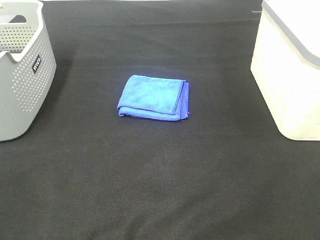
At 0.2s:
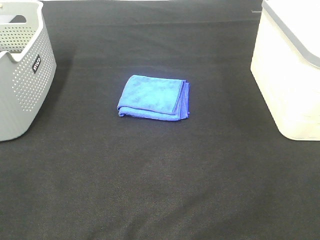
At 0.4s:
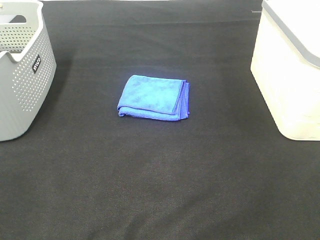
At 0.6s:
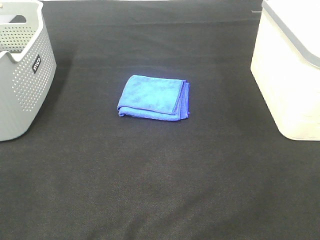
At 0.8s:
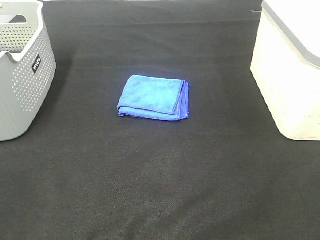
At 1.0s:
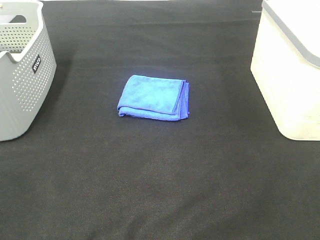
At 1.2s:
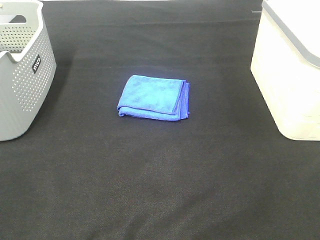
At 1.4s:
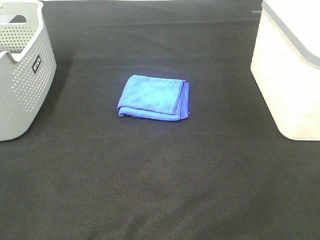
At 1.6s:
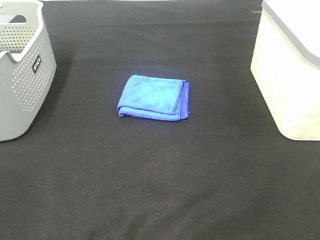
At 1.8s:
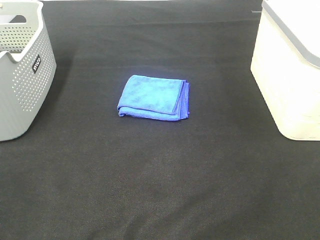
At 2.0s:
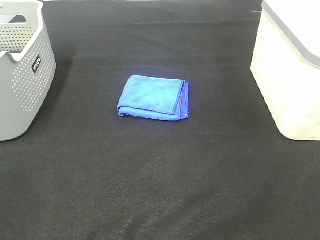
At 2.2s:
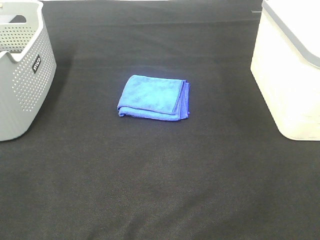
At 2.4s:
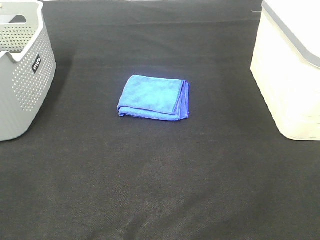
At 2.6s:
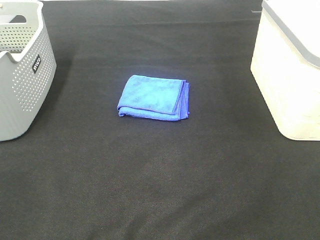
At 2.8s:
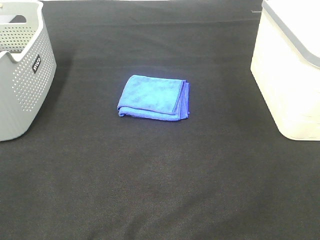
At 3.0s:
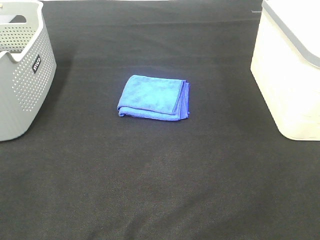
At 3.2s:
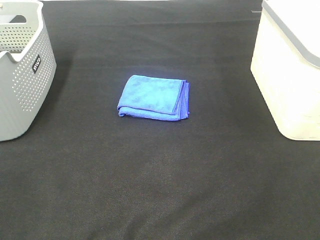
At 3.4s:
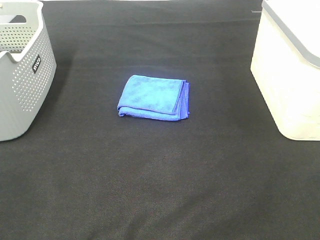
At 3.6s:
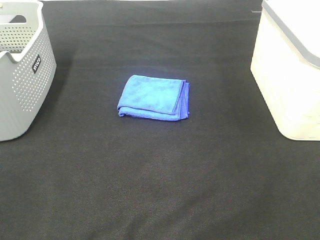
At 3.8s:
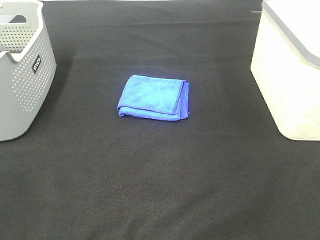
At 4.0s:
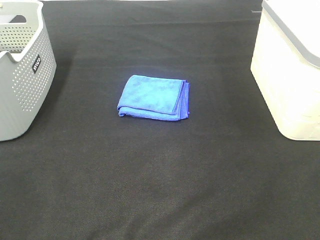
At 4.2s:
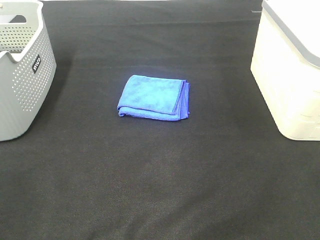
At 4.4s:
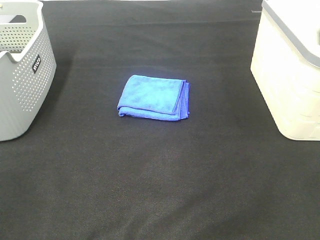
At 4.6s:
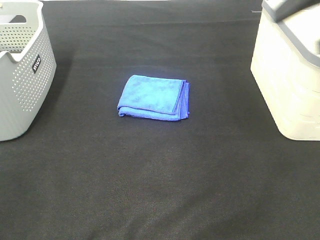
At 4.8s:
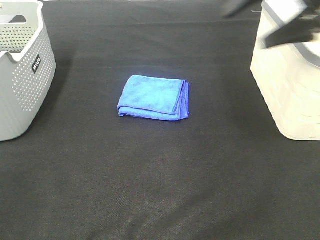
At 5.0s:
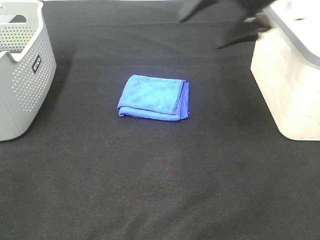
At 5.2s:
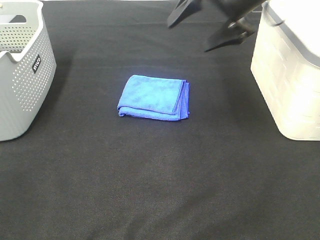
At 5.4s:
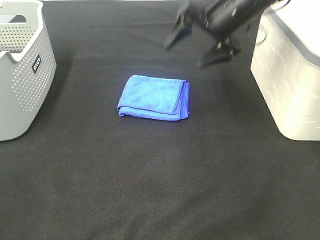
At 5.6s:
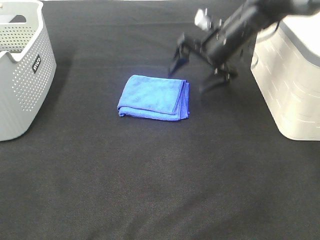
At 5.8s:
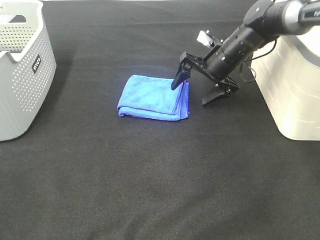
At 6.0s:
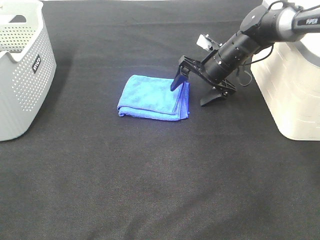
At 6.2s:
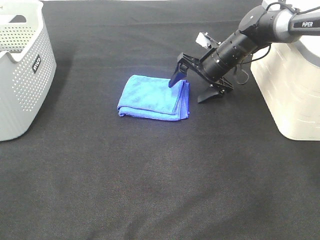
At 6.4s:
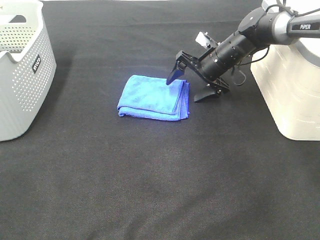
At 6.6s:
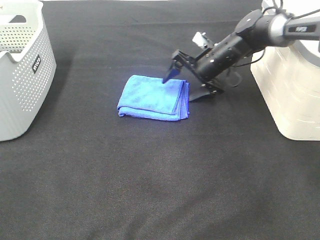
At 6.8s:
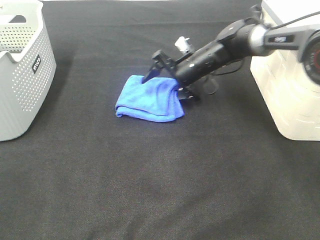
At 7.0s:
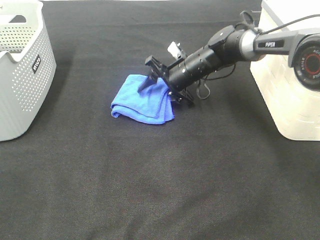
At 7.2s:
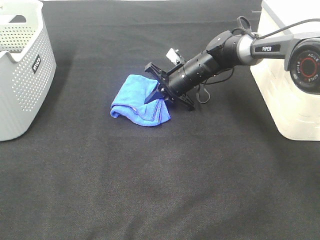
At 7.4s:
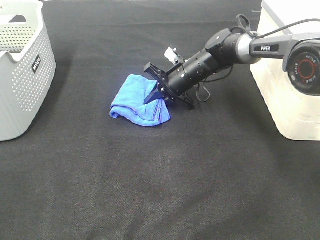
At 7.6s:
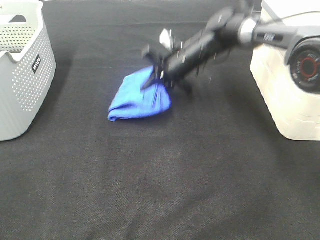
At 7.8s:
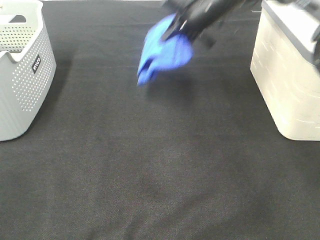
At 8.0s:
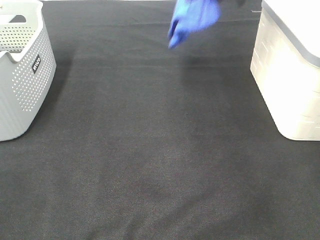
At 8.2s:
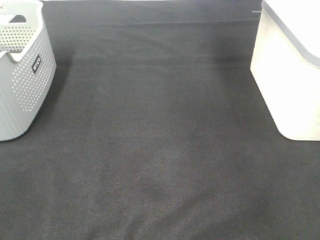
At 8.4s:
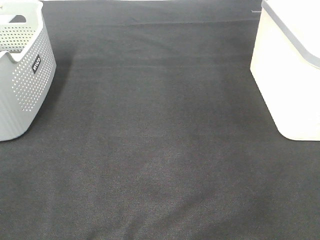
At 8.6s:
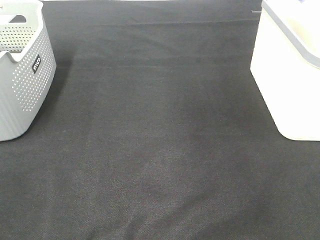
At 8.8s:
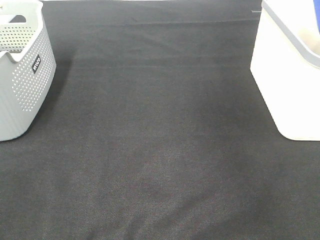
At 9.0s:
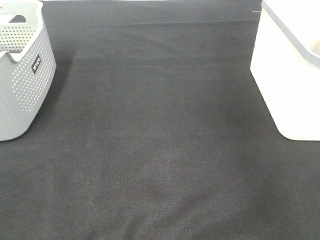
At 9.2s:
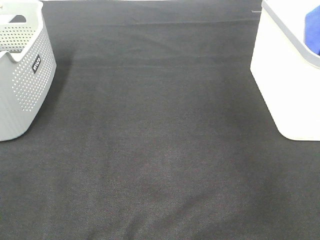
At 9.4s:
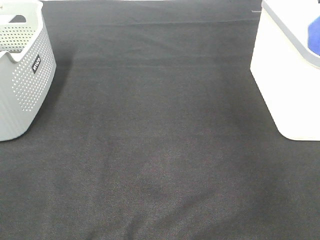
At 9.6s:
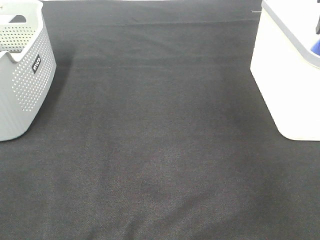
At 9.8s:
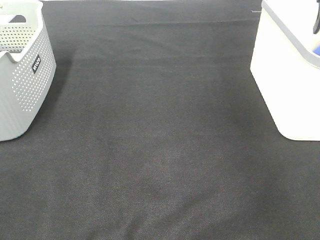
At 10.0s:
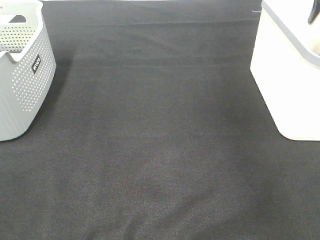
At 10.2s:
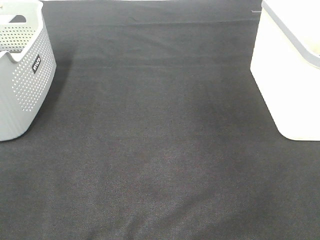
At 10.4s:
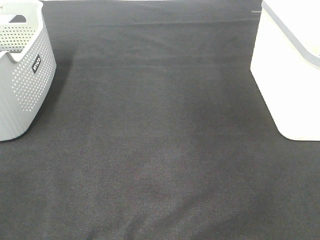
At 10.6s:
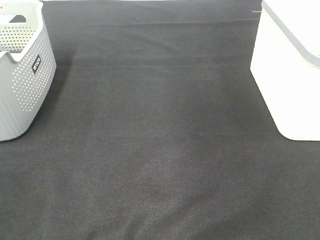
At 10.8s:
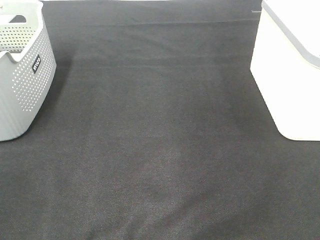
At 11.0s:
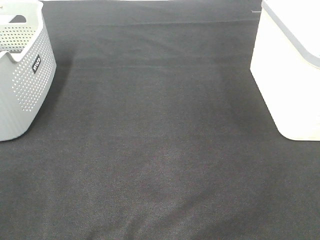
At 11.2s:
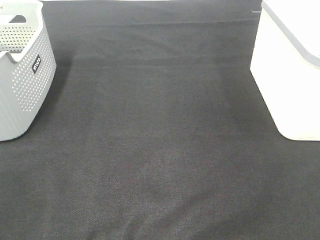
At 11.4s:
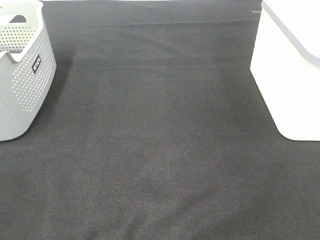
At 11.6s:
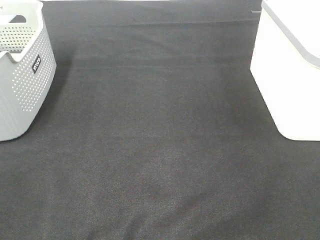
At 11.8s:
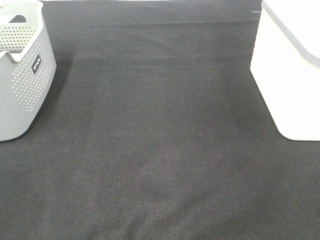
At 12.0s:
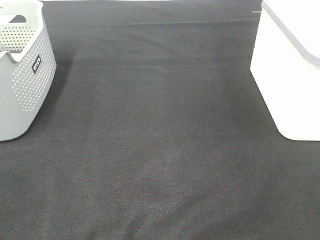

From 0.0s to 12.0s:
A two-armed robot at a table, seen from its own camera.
Step, from 0.0s to 7.2s: Right hand: grab the folded blue towel.
Step, from 7.4s to 9.6s: Right hand: place the blue towel in right basket.
From 0.0s to 3.0s: Both grippers stay about where they are.
From 4.4s to 6.0s: The right gripper shifts roughly 40 cm forward, downward and to the left.
From 6.0s to 7.6s: The right gripper is displaced to the left by approximately 5 cm, and closes up.
From 7.6s to 9.0s: The right gripper shifts roughly 35 cm to the right and upward.

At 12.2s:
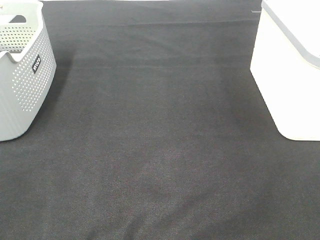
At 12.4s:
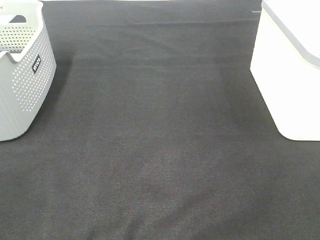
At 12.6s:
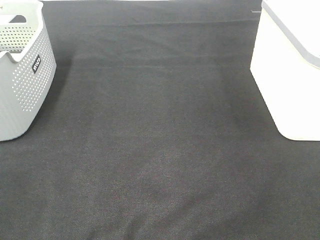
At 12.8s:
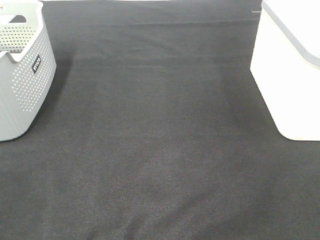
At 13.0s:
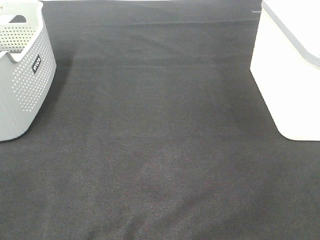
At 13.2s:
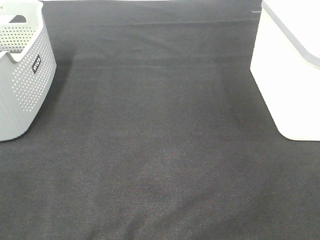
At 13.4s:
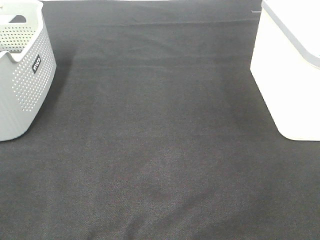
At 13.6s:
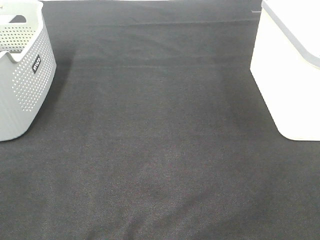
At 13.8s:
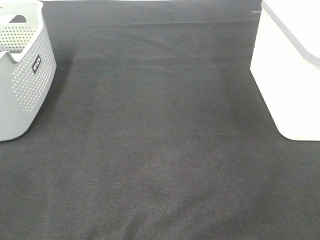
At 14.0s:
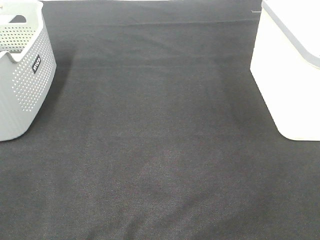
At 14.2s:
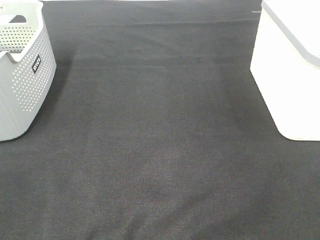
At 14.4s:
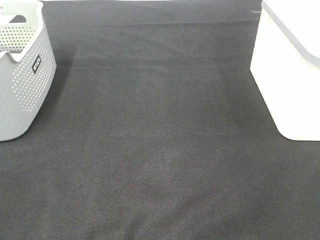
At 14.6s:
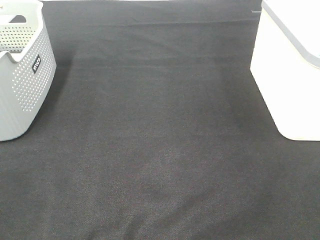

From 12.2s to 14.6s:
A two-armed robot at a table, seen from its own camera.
From 12.2s to 14.6s: Both grippers stay about where they are.

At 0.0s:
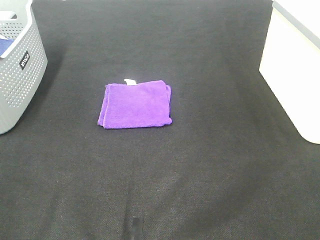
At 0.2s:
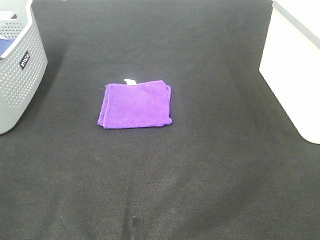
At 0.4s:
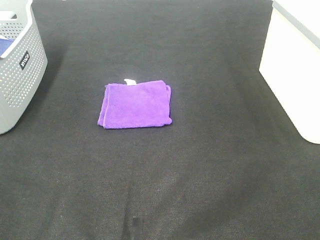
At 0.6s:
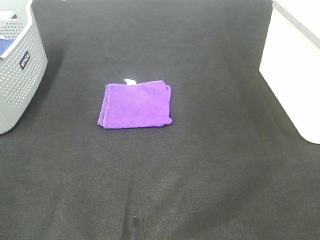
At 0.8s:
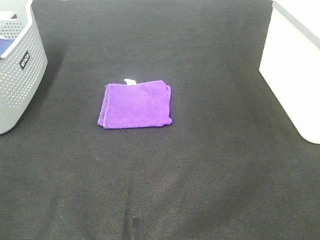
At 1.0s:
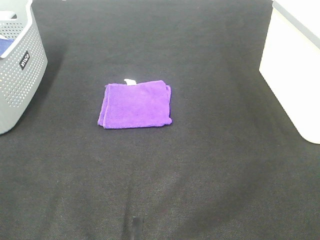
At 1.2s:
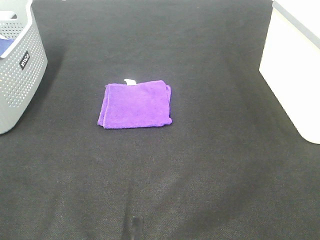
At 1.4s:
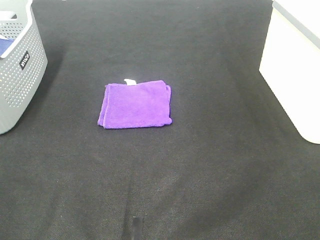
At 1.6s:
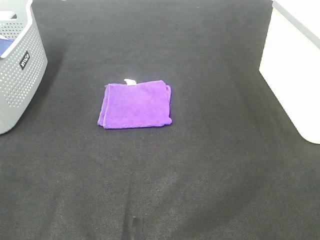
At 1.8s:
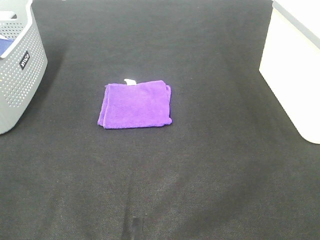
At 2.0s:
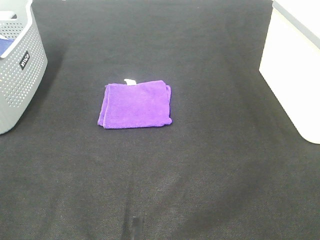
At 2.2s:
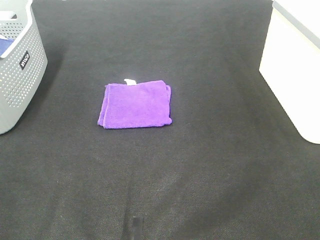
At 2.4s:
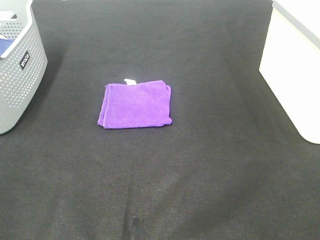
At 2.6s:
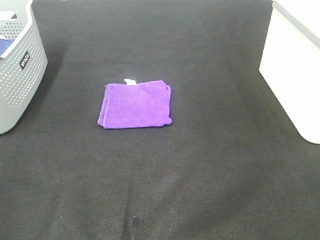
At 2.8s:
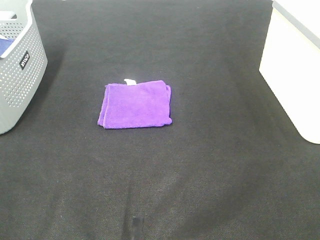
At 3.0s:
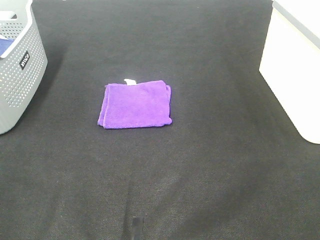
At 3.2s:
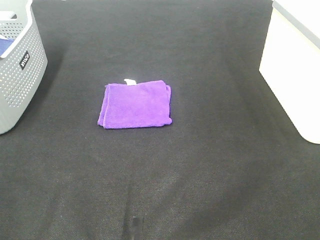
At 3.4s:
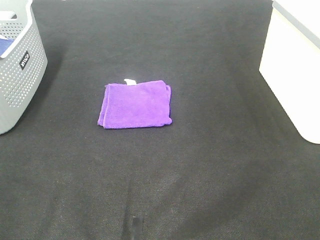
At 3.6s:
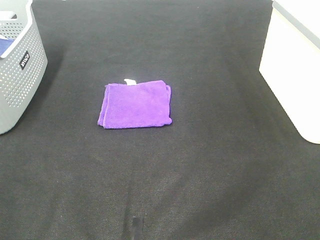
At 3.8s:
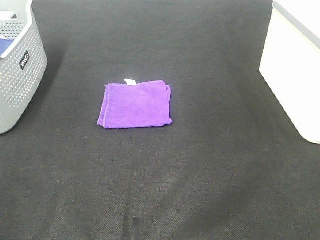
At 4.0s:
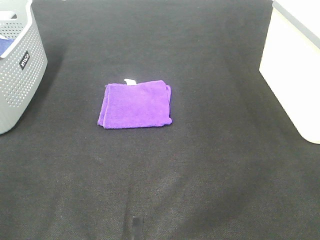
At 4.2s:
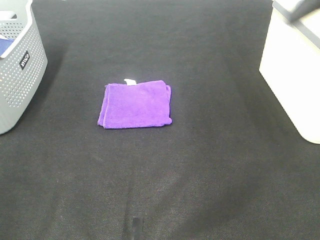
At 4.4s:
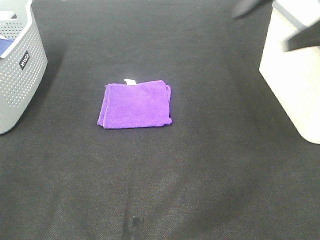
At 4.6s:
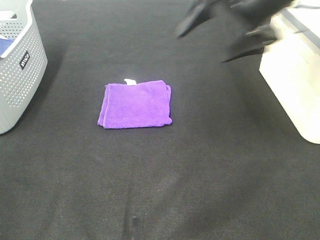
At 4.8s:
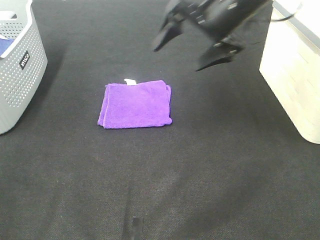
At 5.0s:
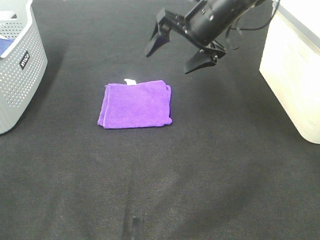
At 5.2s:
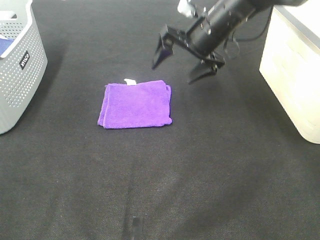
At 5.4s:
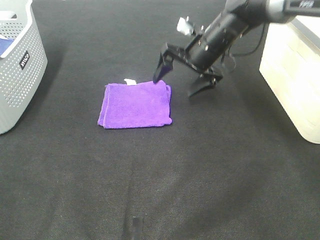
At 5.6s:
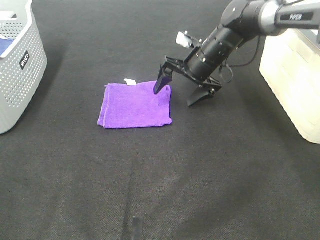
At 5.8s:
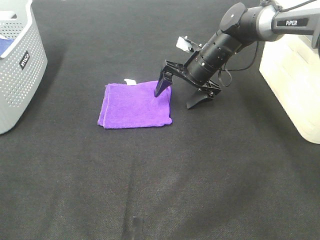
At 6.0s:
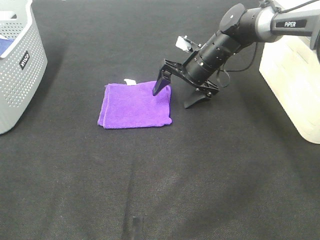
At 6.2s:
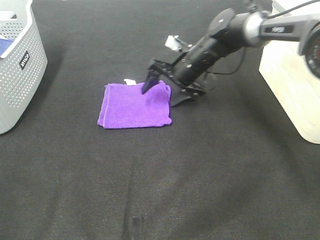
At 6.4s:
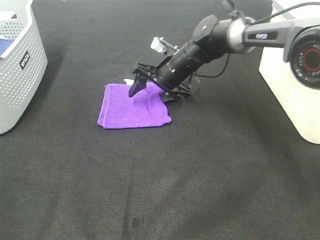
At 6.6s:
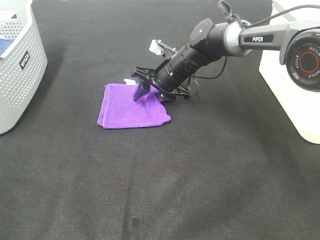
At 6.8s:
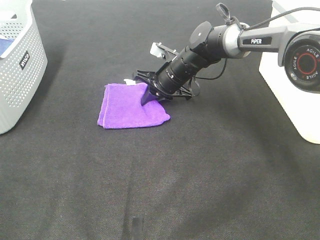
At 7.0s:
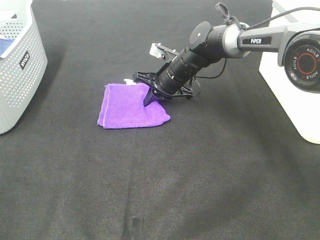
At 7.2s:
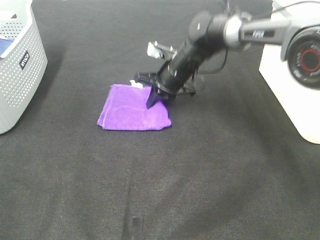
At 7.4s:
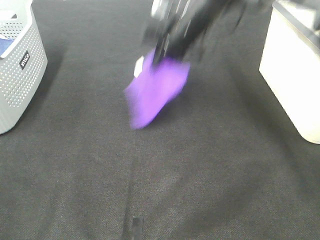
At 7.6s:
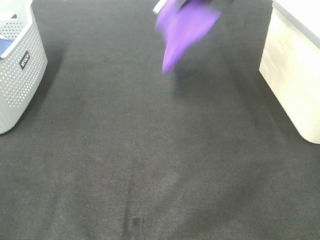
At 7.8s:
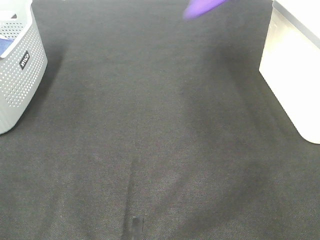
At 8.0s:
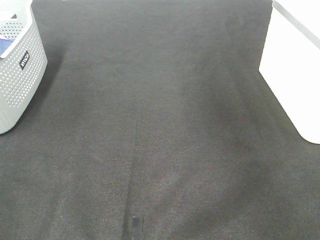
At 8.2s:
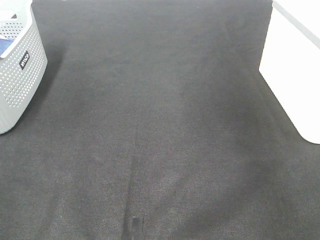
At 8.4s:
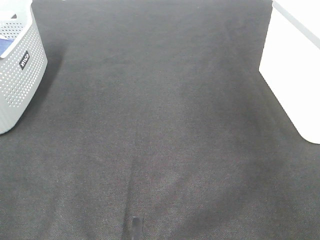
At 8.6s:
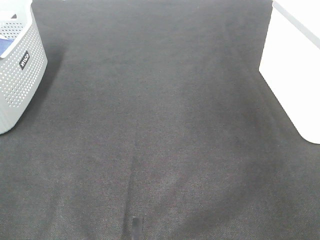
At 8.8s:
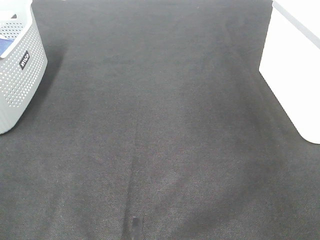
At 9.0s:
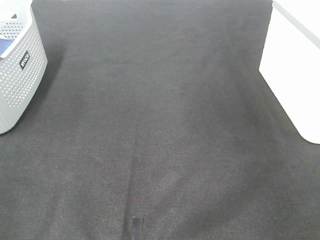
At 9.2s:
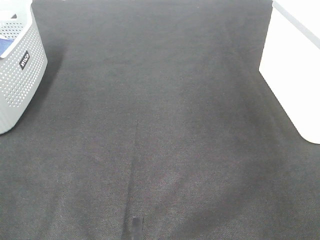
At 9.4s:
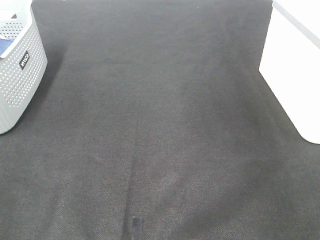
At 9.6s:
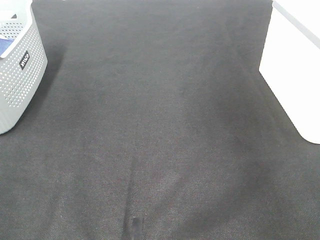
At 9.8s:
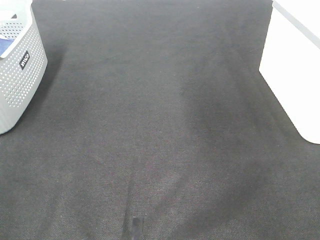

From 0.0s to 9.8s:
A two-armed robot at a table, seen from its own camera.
Step, from 0.0s to 7.0s: Right hand: grab the folded purple towel.
Step, from 7.2s to 8.8s: Right hand: place the purple towel in right basket.
From 0.0s to 2.8s: Neither gripper changes place.
From 2.8s to 4.2s: The right gripper heads forward, covering roughly 25 cm.
From 4.2s to 5.6s: The right gripper moves downward, forward and to the left, approximately 35 cm.
From 5.6s to 7.0s: The right gripper shifts about 5 cm to the left, and closes up.
From 7.0s to 8.4s: The right gripper goes about 50 cm to the right and upward.
